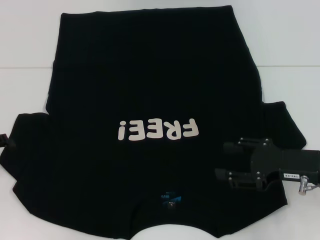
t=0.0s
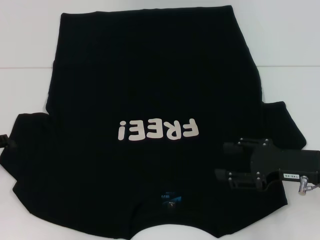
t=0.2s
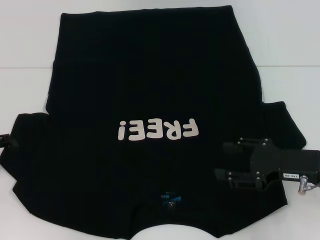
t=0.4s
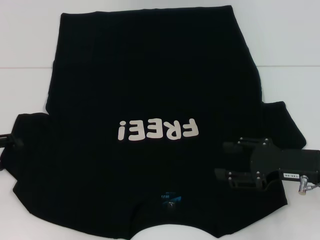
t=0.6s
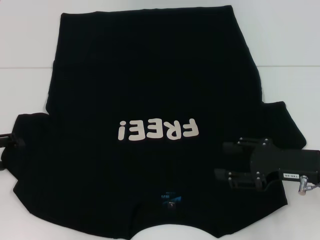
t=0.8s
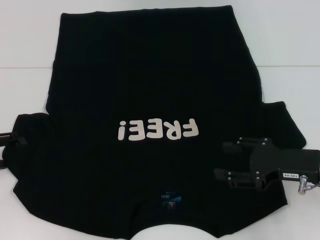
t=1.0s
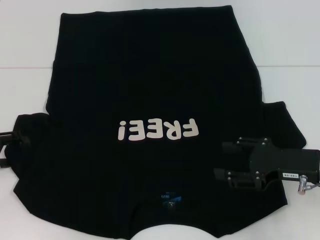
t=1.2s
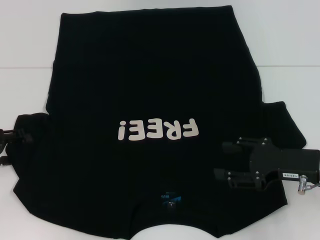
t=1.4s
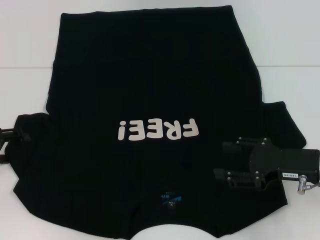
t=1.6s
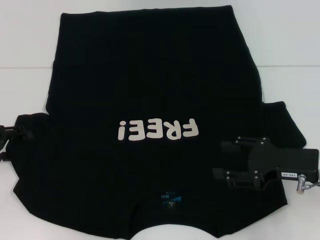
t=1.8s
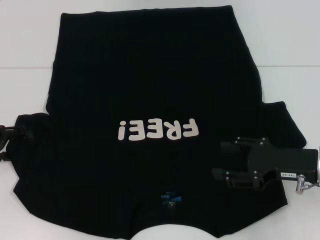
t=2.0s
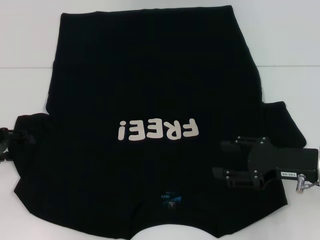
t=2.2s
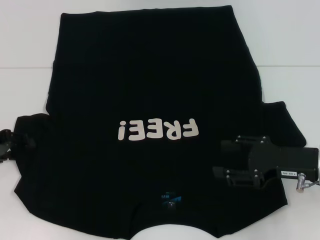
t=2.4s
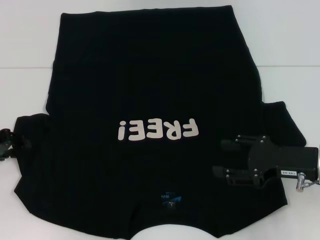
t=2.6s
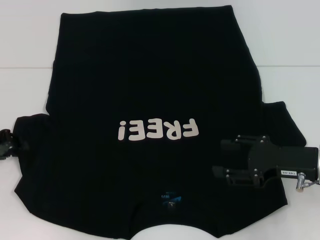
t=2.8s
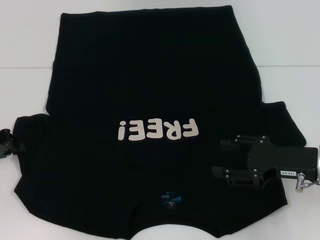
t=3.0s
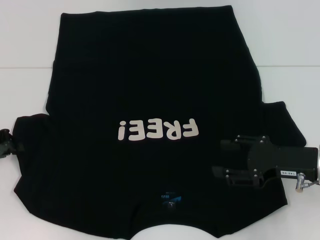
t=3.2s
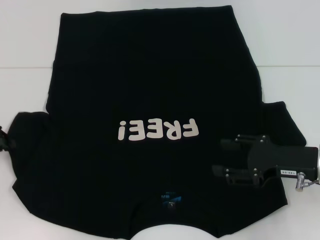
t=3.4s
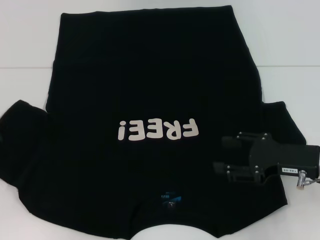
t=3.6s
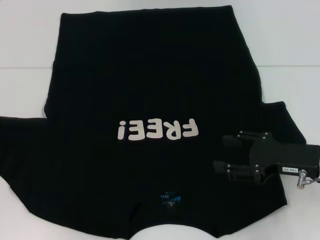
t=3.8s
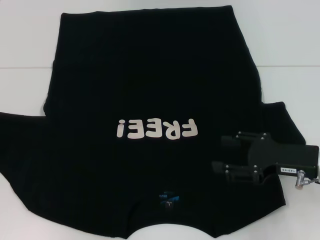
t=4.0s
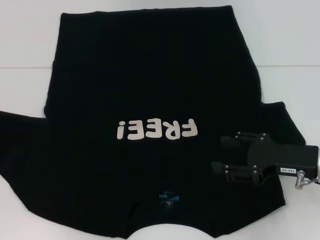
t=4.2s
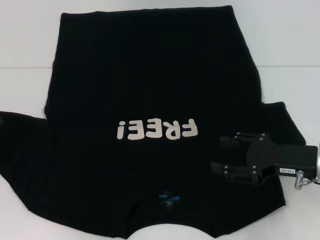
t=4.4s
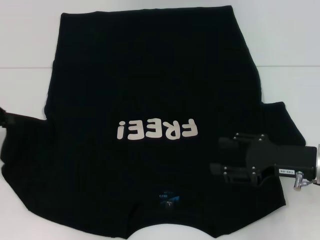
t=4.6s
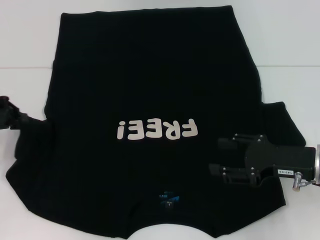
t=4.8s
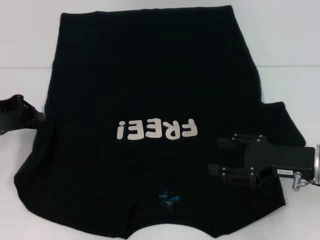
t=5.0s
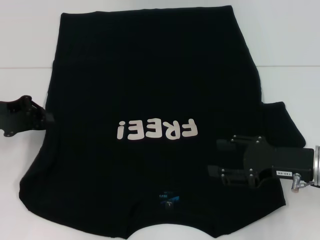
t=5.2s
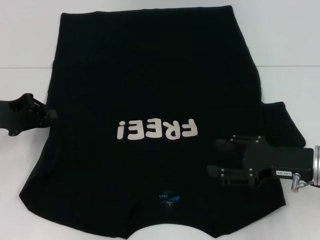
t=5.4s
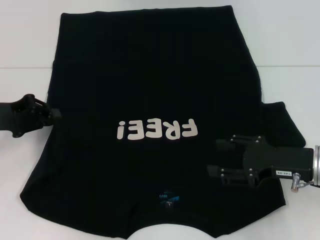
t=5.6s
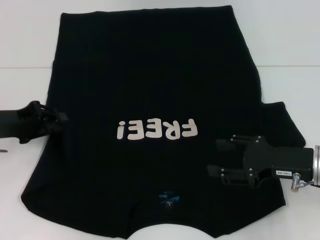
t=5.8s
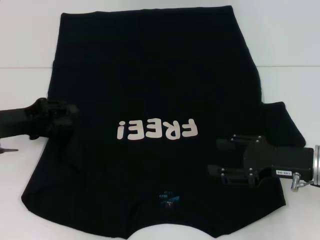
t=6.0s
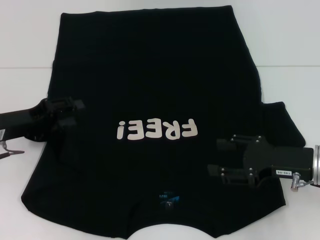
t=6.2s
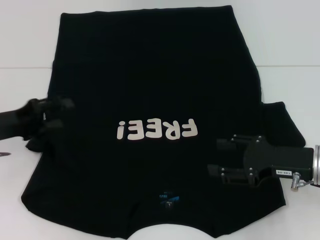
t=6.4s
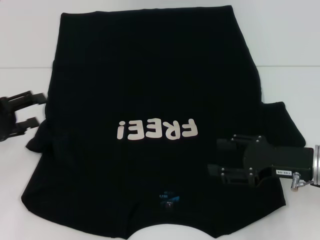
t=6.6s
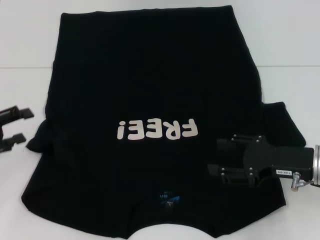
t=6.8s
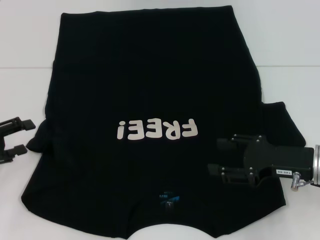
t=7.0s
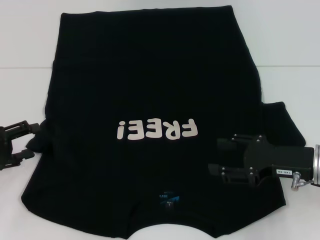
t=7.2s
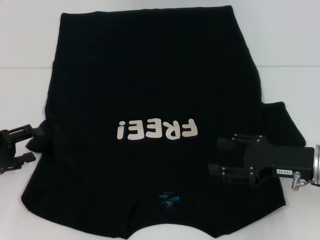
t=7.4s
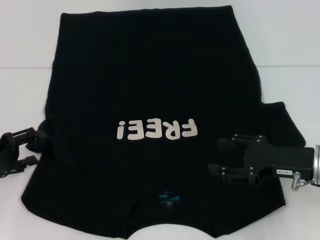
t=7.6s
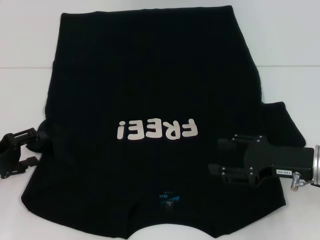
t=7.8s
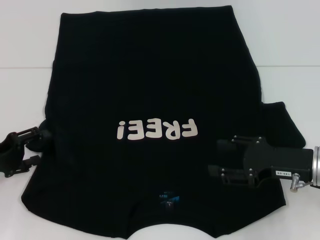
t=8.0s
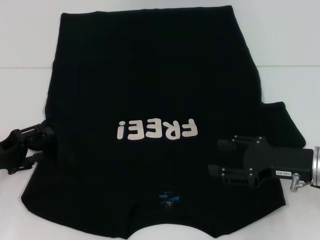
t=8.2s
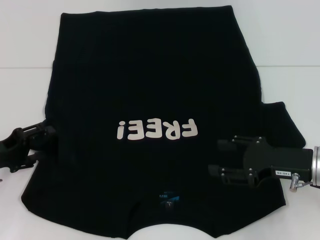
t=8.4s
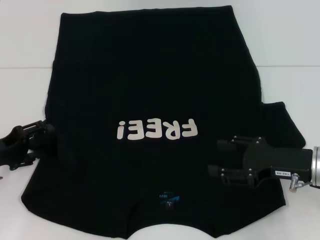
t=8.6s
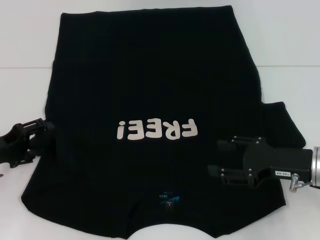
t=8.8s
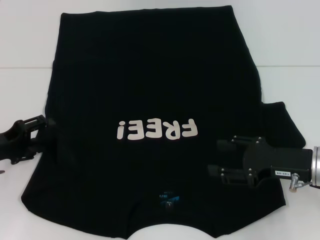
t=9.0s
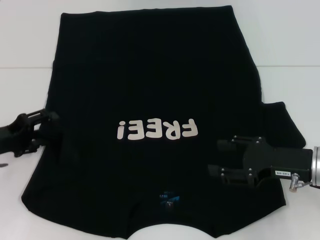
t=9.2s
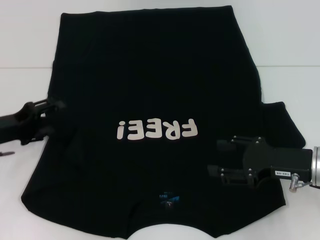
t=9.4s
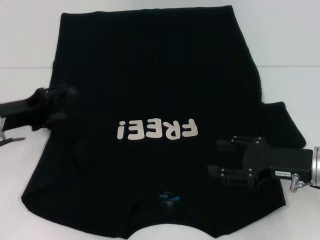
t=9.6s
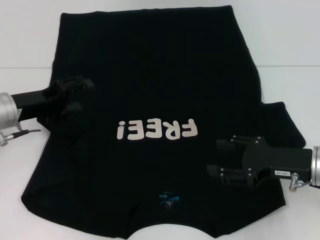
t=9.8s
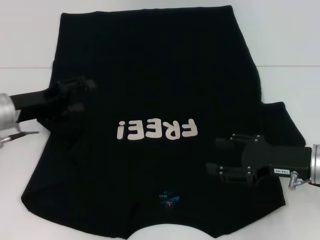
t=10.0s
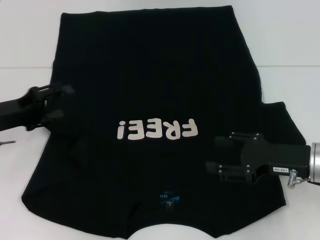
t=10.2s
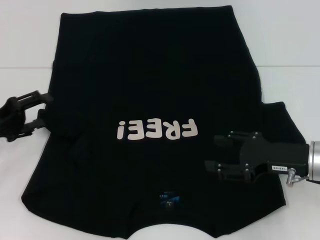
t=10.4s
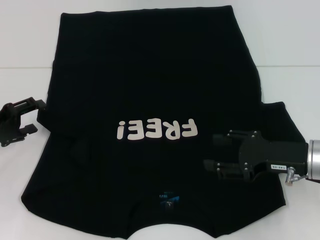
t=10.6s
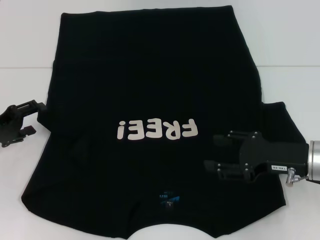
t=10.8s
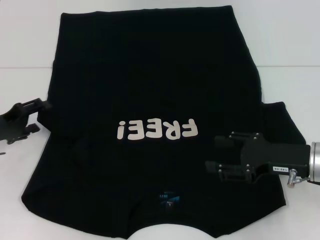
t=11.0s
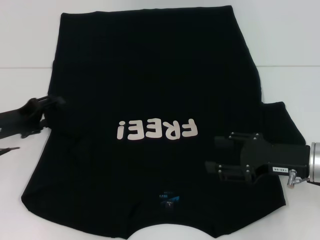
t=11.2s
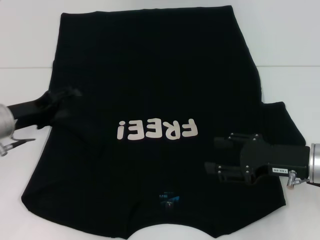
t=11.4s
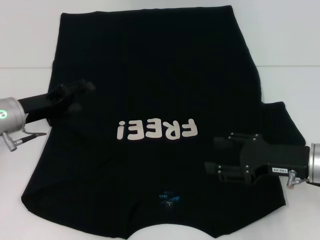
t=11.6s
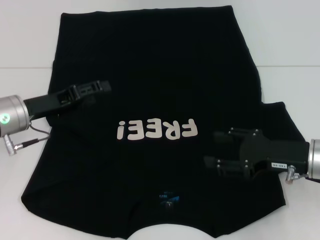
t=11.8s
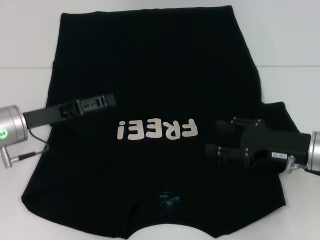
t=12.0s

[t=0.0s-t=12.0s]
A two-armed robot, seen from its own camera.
Step, t=0.0s to t=12.0s: Fold the bottom left sleeve with your left hand.
t=0.0s to t=1.6s: The grippers make only small movements.
t=1.6s to t=3.0s: The left gripper closes its fingers.
t=3.0s to t=4.4s: The left gripper is displaced upward by roughly 5 cm.
t=4.4s to t=6.0s: The left gripper travels to the right by roughly 10 cm.
t=6.0s to t=7.6s: The left gripper goes approximately 5 cm backward, and opens.
t=7.6s to t=9.0s: The grippers make only small movements.
t=10.4s to t=12.0s: The left gripper moves to the right, about 10 cm.

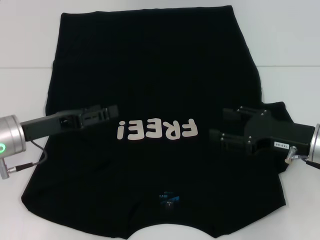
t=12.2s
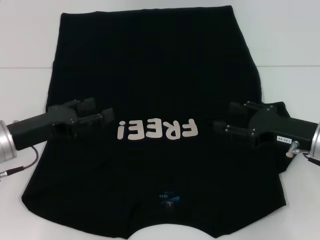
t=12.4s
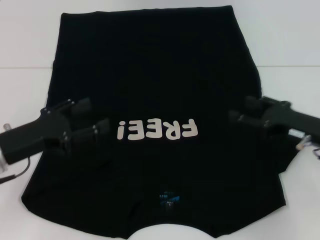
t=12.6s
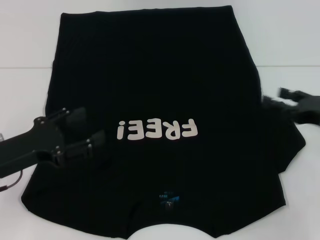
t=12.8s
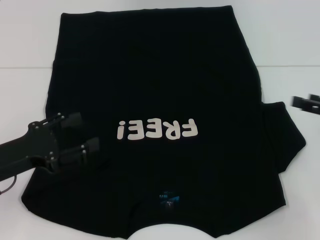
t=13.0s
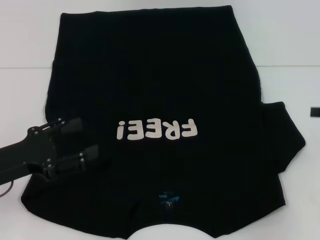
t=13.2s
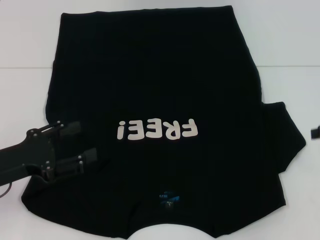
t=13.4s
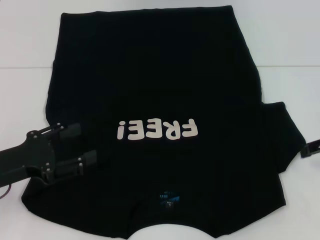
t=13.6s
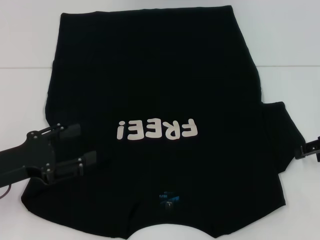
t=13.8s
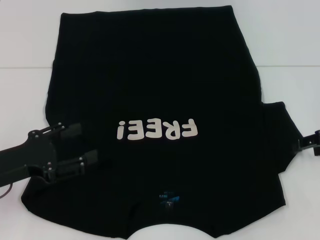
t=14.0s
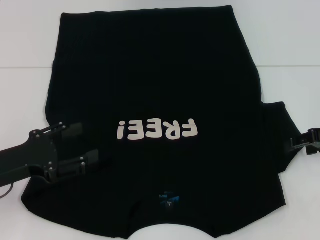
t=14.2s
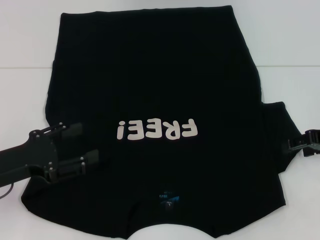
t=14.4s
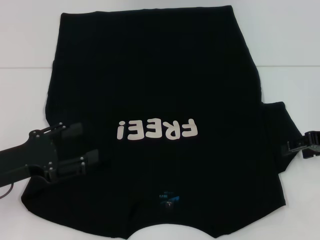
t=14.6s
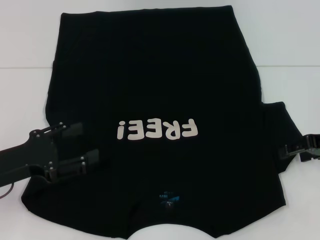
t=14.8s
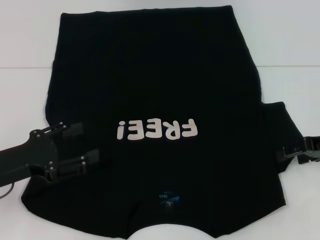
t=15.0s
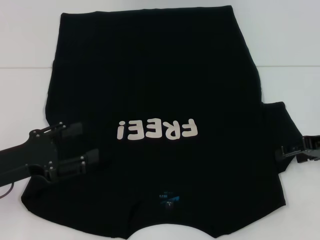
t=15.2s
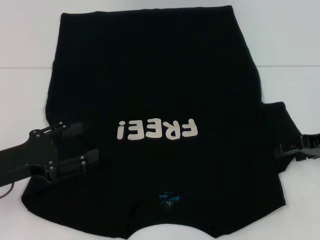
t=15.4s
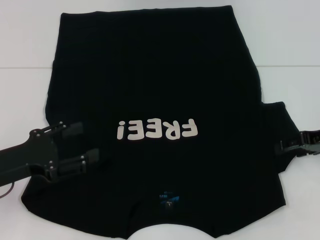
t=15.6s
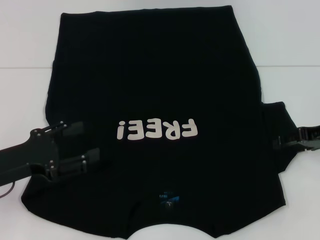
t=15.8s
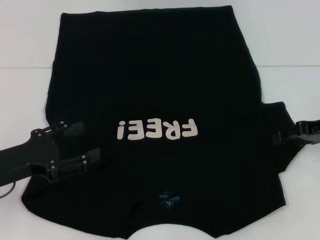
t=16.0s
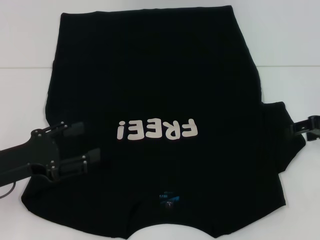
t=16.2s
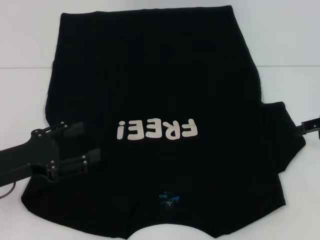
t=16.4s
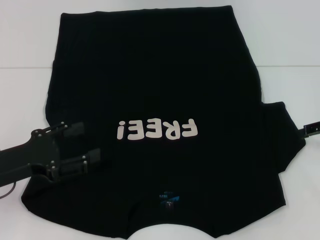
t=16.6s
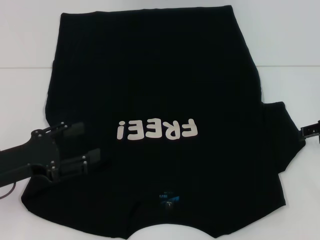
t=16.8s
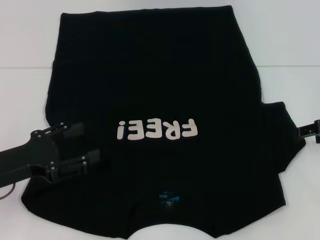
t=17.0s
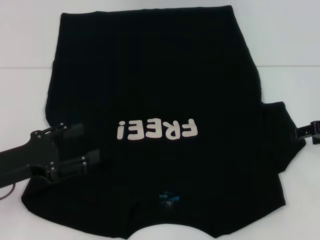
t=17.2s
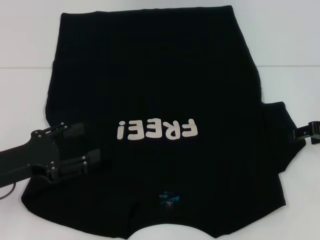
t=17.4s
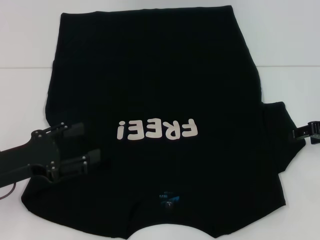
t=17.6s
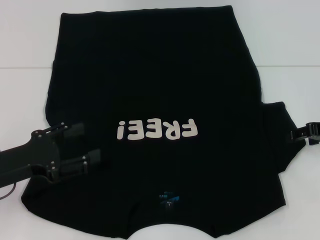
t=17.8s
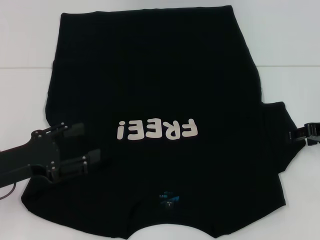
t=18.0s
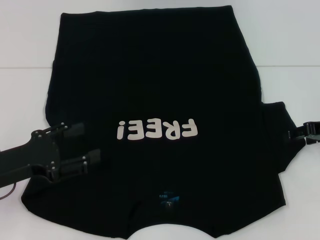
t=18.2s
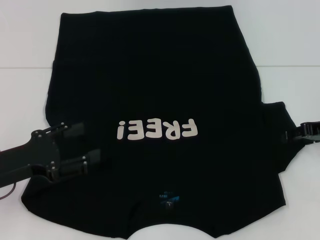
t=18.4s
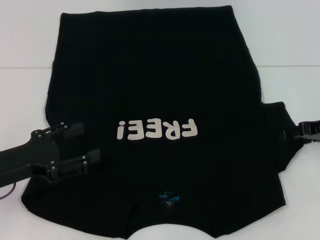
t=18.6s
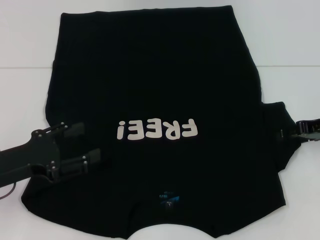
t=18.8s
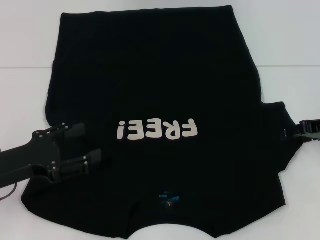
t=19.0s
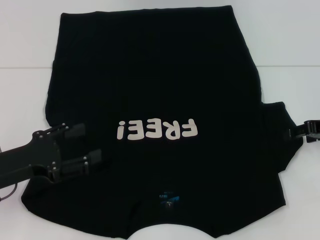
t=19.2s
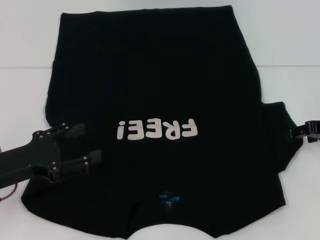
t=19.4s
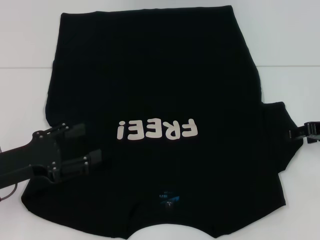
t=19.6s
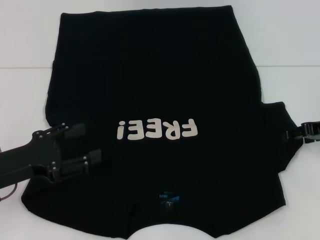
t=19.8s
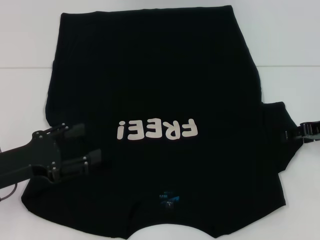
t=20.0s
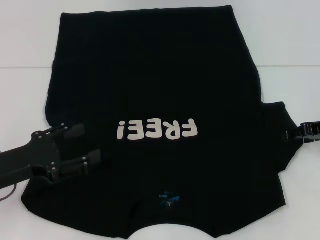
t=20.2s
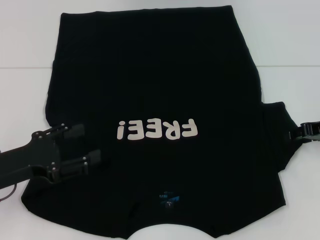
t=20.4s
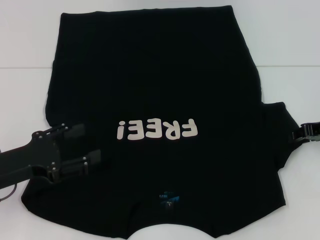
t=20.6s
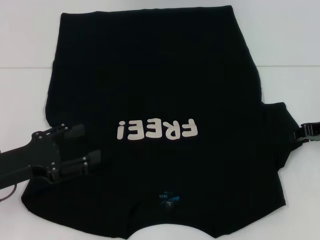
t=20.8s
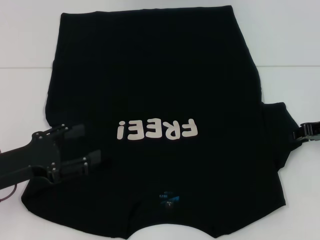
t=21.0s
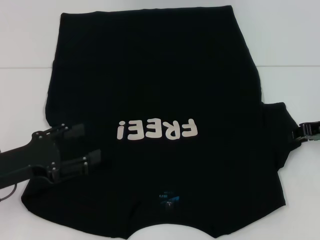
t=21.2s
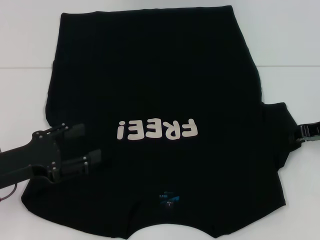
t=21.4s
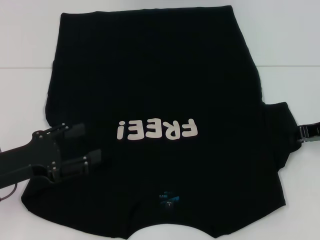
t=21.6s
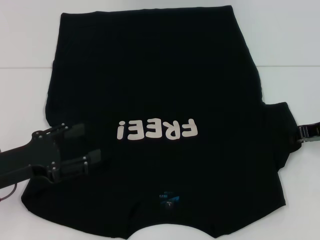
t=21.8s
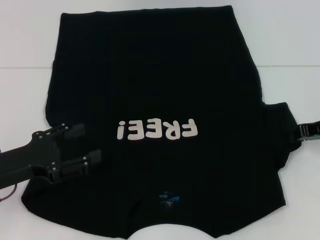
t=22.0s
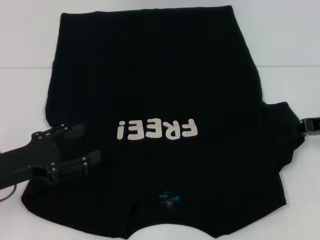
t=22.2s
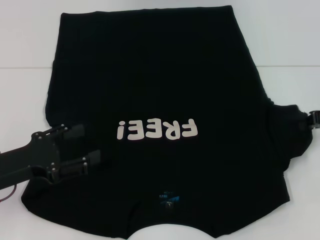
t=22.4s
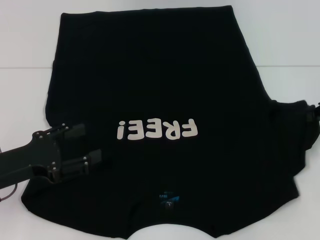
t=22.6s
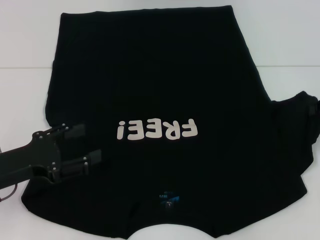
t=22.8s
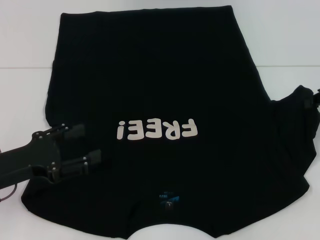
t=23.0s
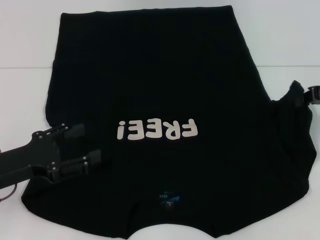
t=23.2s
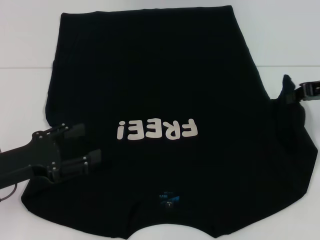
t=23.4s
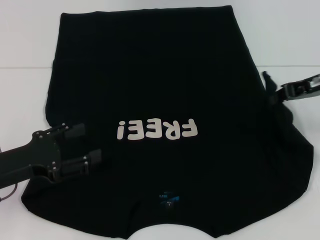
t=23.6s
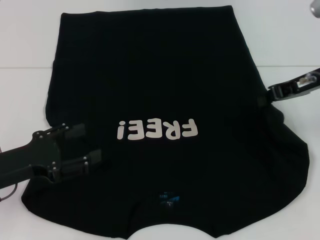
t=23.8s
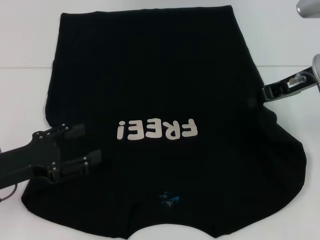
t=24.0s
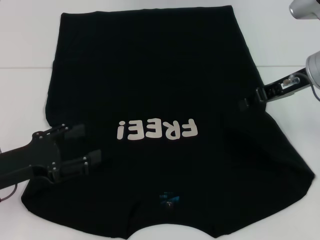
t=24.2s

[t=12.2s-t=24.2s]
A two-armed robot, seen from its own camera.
t=12.2s to t=13.8s: The right gripper shifts approximately 10 cm to the right and upward. The left gripper goes some 5 cm backward.
t=13.8s to t=16.6s: The grippers move only a little.
t=18.2s to t=19.8s: Neither gripper changes place.
t=21.2s to t=22.6s: The grippers move only a little.
t=22.6s to t=24.2s: The right gripper is displaced to the left by some 10 cm.
